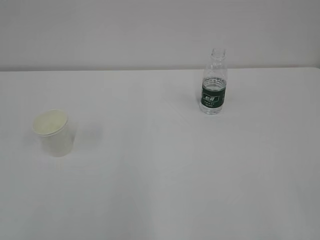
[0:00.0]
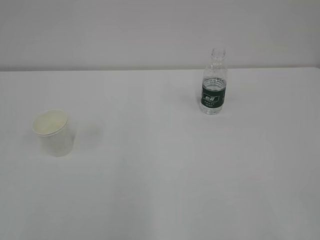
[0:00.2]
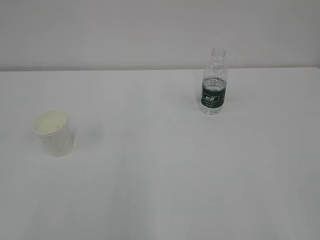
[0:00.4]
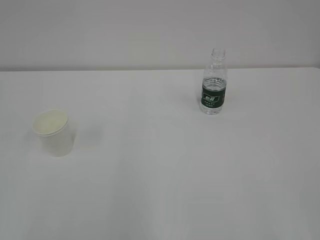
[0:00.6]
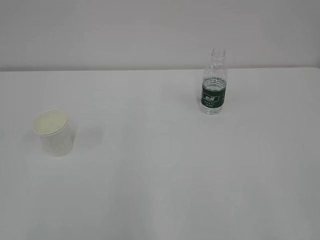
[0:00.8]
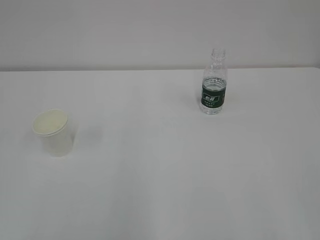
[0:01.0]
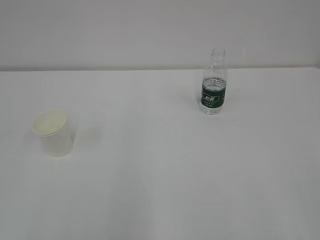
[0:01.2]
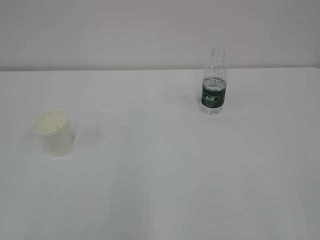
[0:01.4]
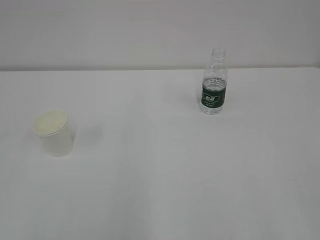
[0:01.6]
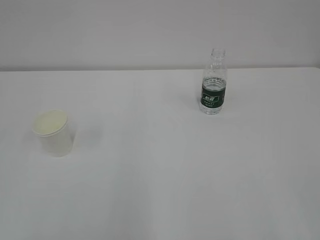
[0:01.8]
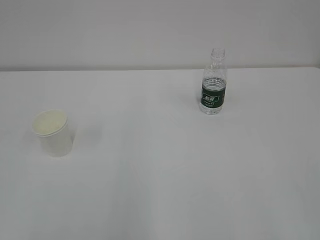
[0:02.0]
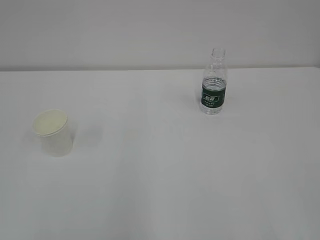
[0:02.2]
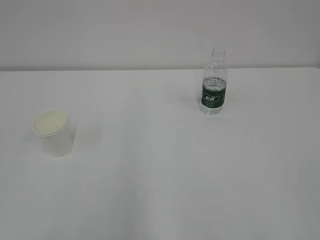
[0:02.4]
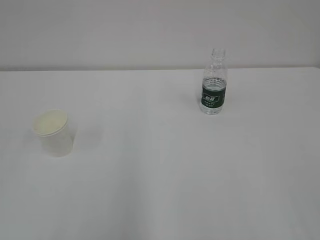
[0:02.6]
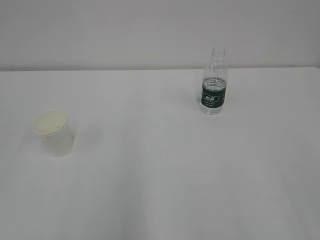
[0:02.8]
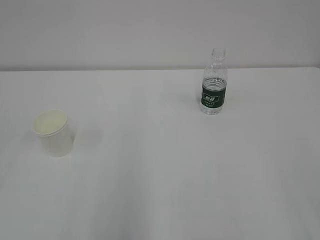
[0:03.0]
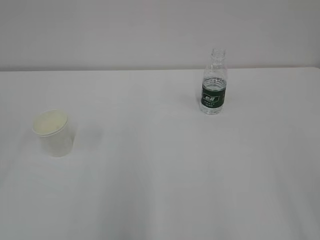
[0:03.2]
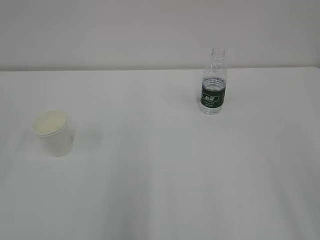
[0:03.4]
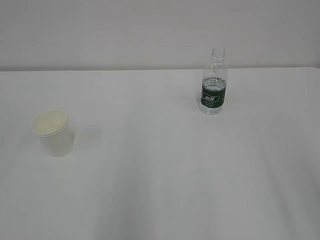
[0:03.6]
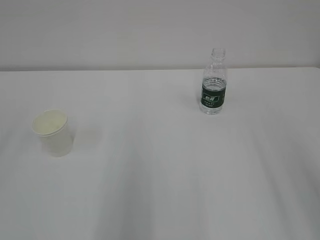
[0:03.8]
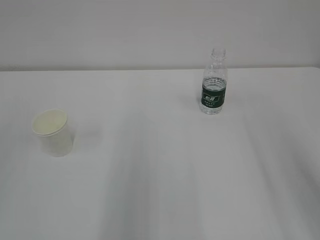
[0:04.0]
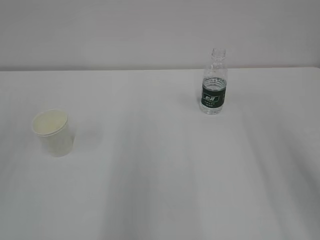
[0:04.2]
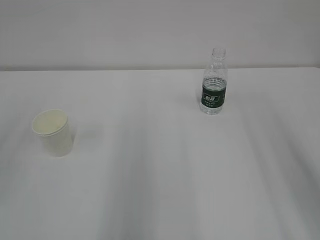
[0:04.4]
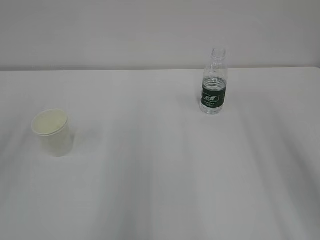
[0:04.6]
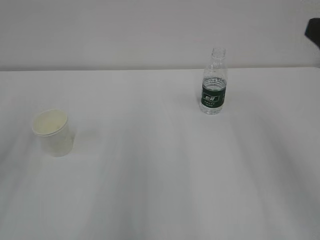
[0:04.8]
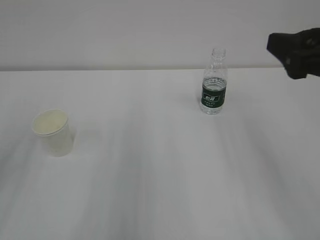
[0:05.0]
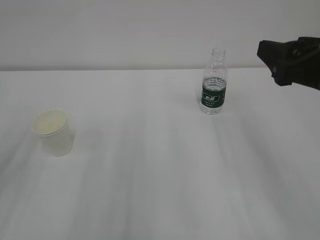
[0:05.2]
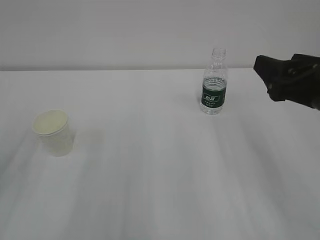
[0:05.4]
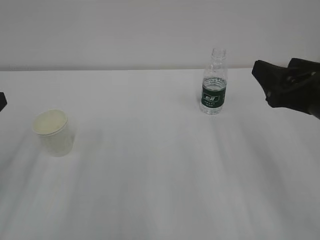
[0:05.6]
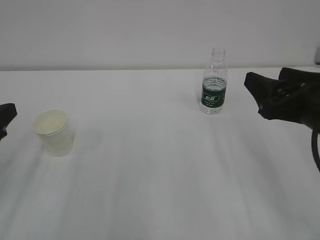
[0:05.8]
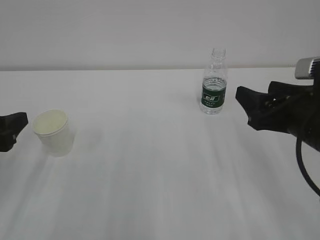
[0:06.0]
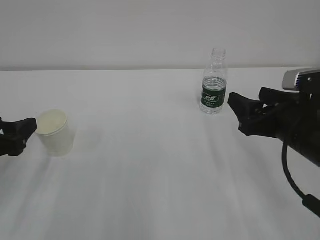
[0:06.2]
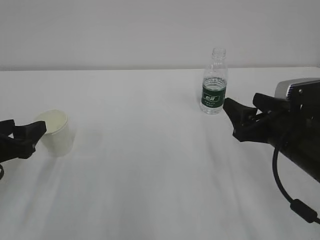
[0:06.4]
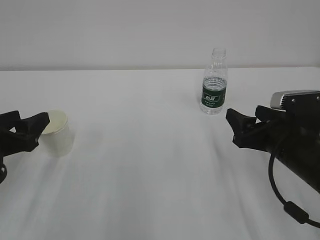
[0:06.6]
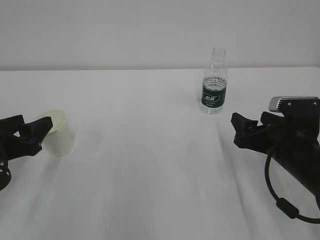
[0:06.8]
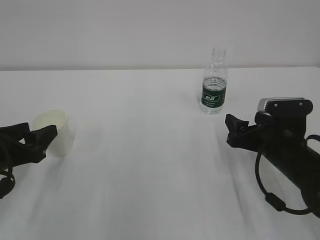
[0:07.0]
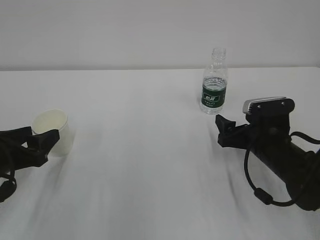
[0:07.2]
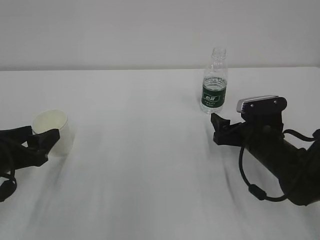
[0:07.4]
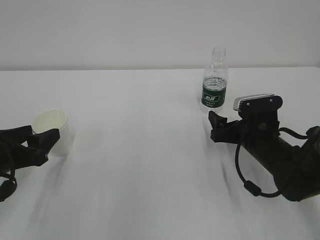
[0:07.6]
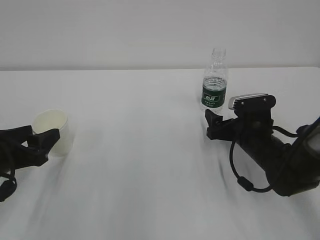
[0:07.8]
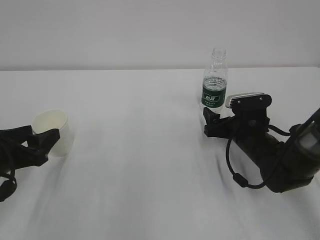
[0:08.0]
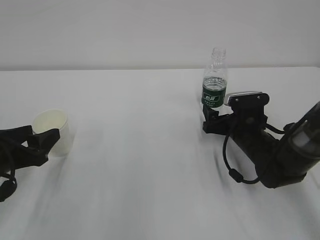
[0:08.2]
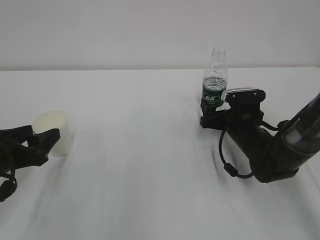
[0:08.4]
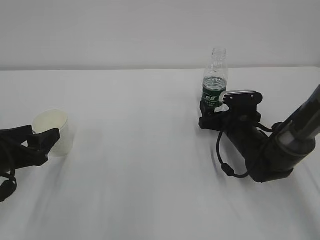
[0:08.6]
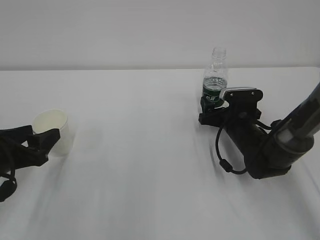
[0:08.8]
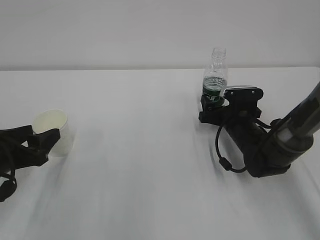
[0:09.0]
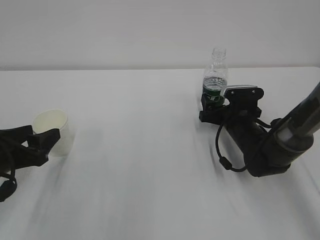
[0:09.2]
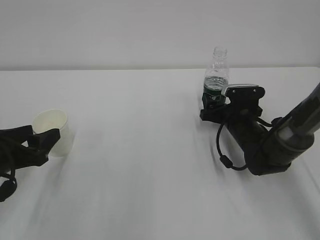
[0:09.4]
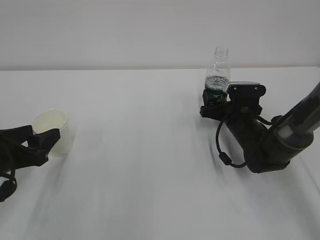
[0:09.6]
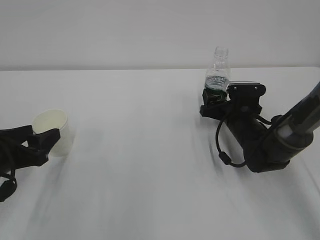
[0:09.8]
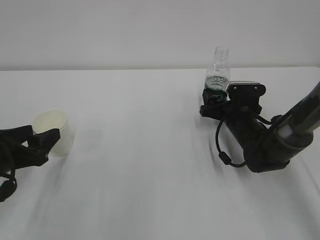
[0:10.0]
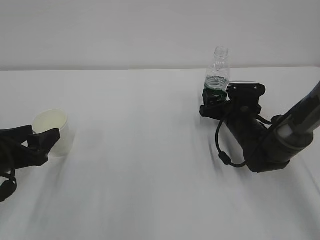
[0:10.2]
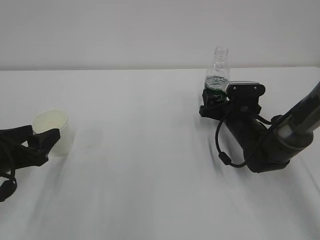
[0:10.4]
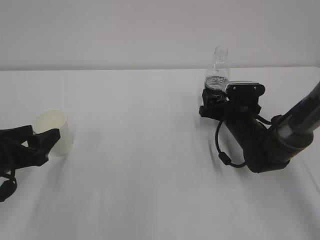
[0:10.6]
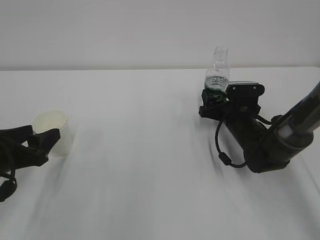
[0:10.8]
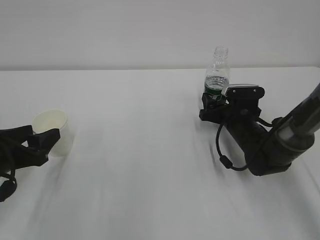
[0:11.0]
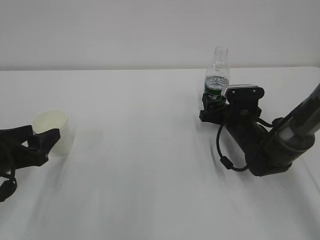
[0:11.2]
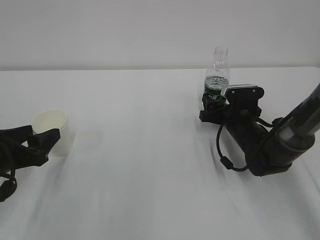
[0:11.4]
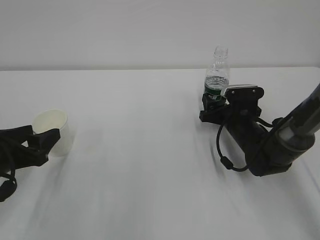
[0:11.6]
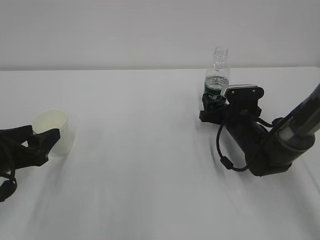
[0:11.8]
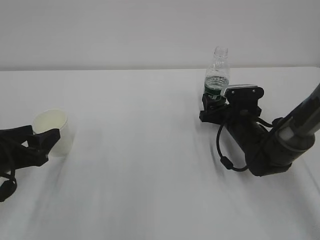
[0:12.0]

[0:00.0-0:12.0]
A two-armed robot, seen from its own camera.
0:04.4 to 0:06.0: The right gripper heads downward, forward and to the left, covering some 15 cm, while the left gripper travels downward by some 15 cm, and opens its fingers.
0:06.0 to 0:07.6: The left gripper moves downward, approximately 5 cm; the right gripper travels downward and forward by approximately 15 cm, and opens up.
0:07.6 to 0:09.0: The right gripper goes roughly 5 cm forward.
0:09.0 to 0:12.0: The two grippers keep their place.

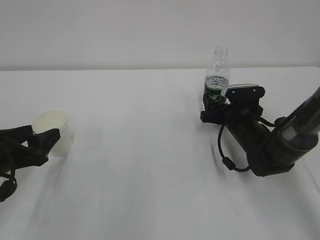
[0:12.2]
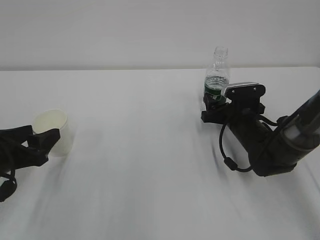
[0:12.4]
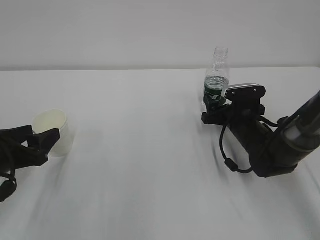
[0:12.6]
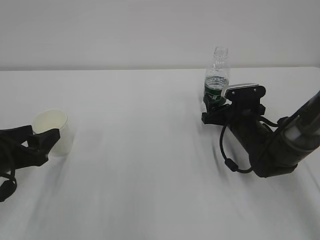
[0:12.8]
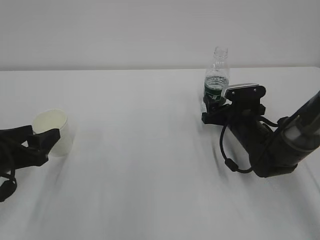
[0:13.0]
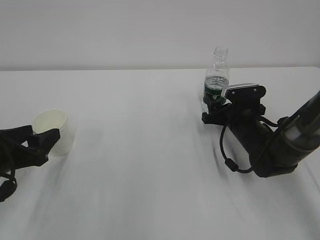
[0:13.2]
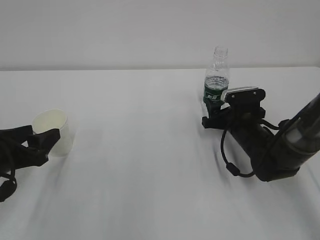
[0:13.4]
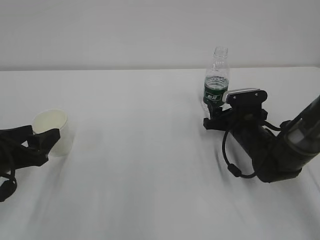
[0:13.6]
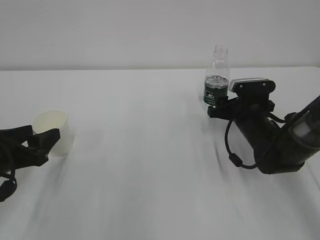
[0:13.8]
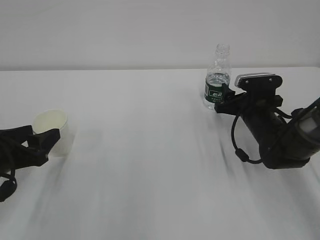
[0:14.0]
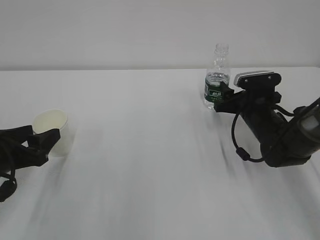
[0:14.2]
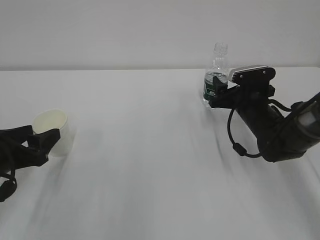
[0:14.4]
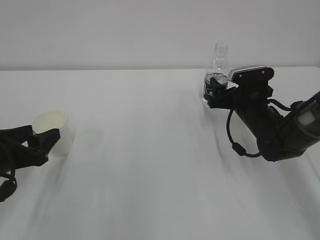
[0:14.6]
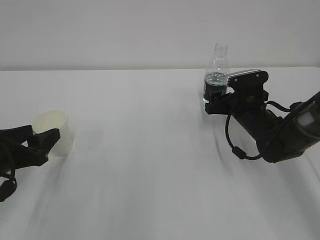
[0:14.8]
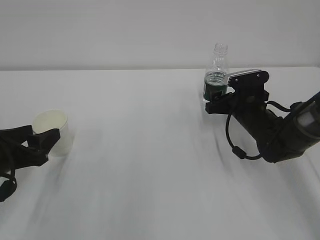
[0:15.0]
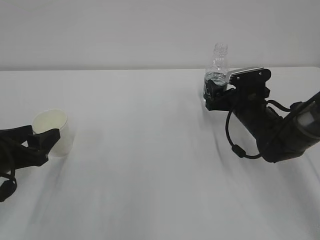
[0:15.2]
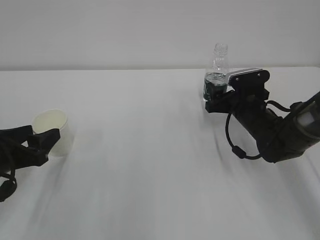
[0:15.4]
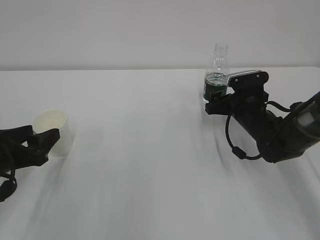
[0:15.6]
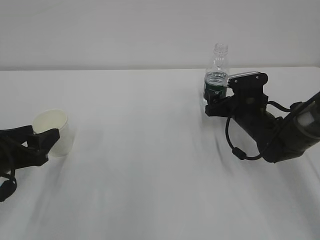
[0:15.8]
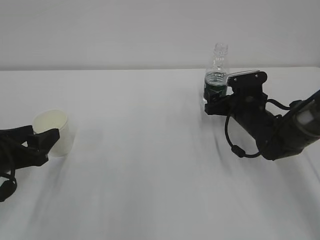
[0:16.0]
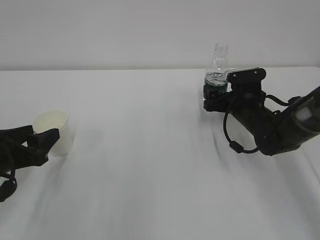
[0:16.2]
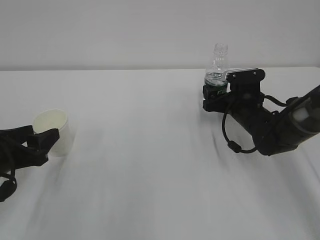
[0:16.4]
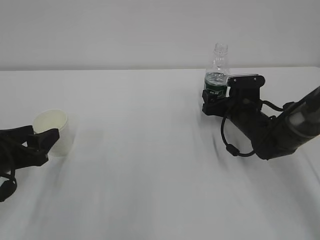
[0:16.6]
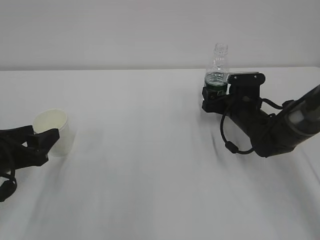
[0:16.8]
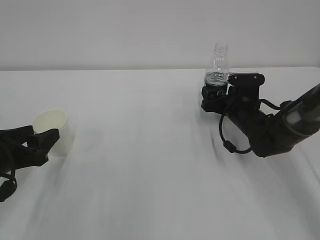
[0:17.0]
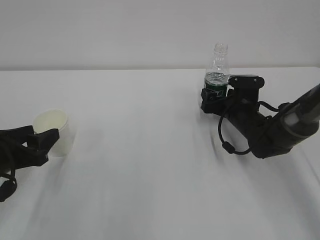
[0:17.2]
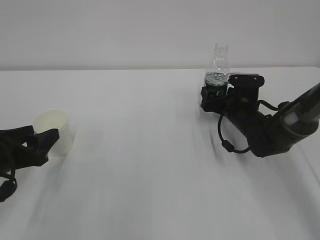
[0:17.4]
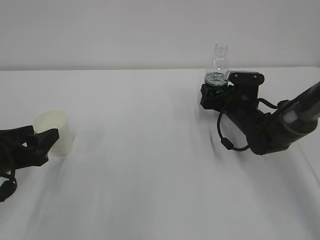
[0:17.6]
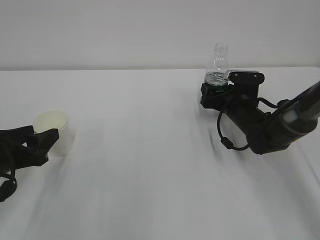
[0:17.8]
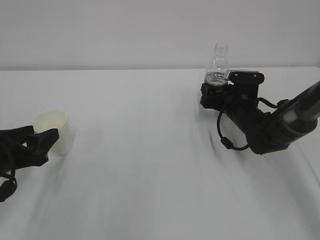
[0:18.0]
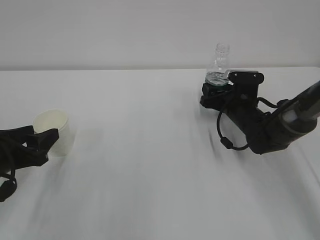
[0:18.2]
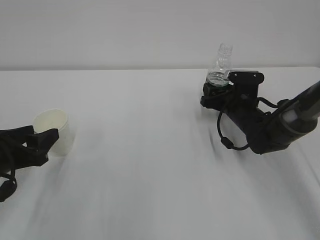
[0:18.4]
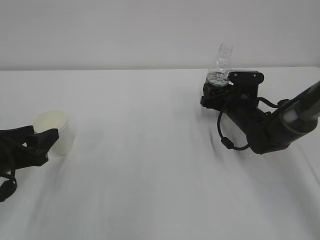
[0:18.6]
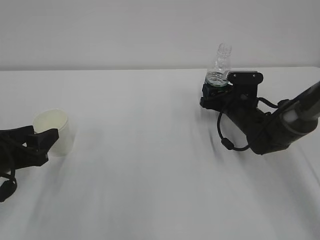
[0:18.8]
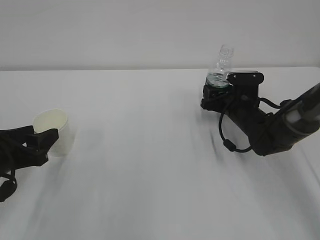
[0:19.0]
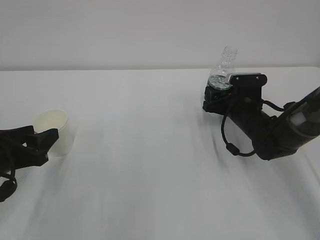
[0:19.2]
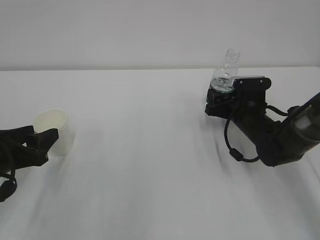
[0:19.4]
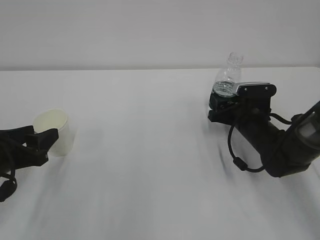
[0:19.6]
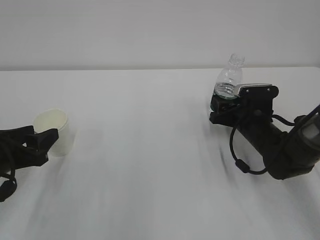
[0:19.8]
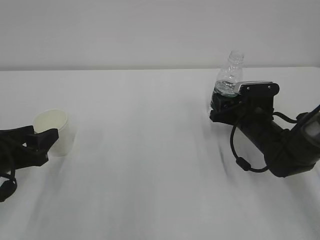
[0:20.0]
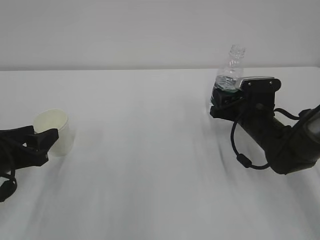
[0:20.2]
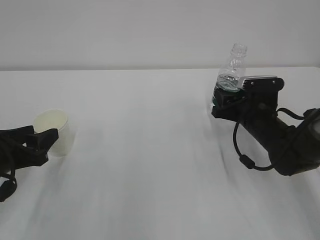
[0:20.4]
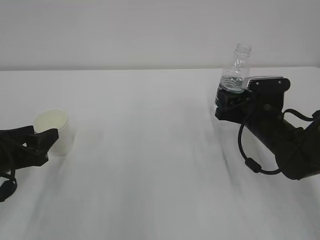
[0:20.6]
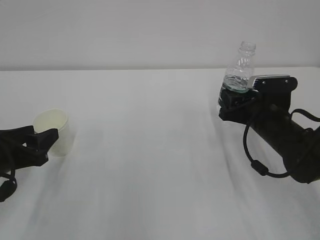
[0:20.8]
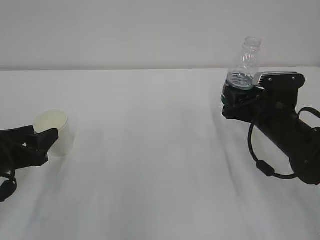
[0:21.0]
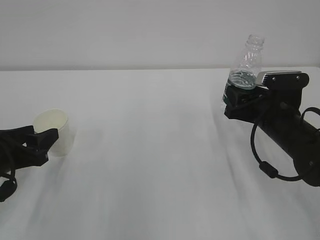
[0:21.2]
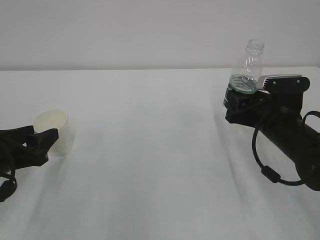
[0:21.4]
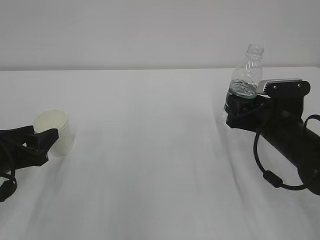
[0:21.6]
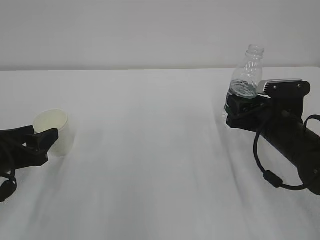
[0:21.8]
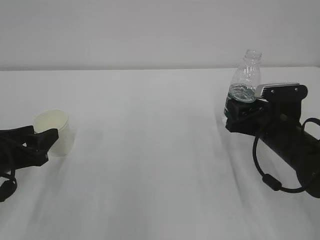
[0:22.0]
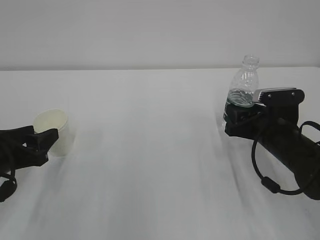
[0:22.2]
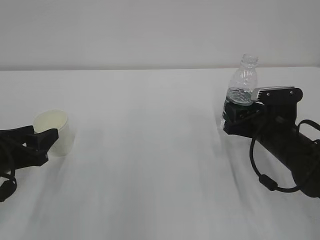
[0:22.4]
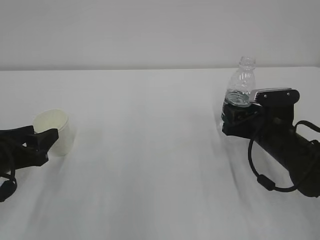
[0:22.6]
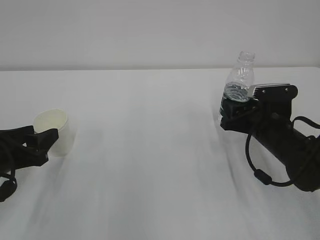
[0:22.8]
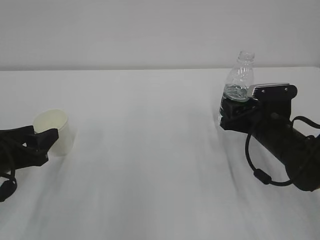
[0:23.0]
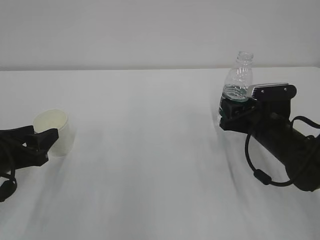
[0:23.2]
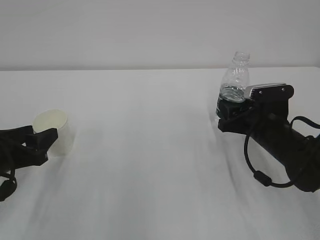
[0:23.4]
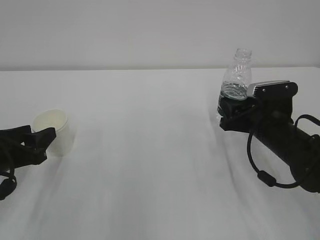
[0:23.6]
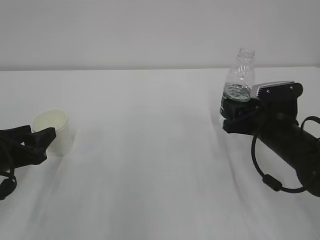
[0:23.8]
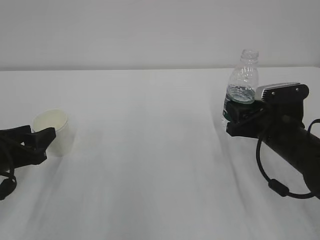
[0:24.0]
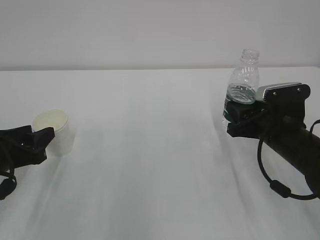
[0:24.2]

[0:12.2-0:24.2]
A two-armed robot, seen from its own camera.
0:12.2 to 0:15.2: The grippers move only a little.
0:15.2 to 0:16.6: The right gripper opens its fingers.
0:16.6 to 0:18.2: The right gripper closes up.
0:18.2 to 0:19.8: The right gripper goes approximately 5 cm backward.
0:19.8 to 0:21.2: The right gripper shifts some 10 cm upward and backward.
0:21.2 to 0:24.2: There are only small adjustments of the grippers.
